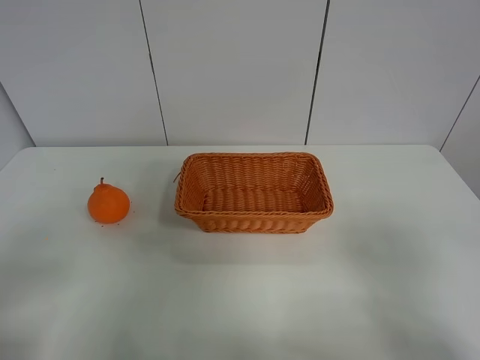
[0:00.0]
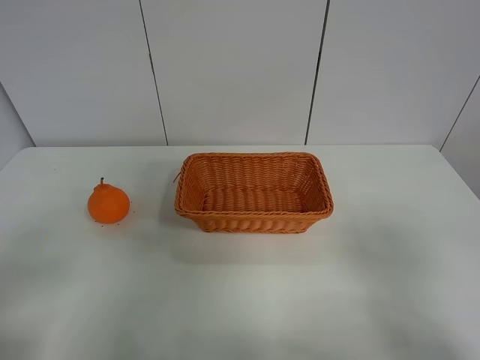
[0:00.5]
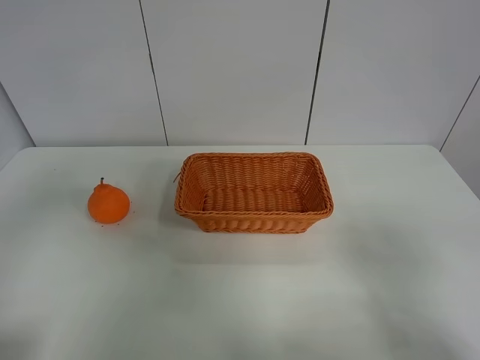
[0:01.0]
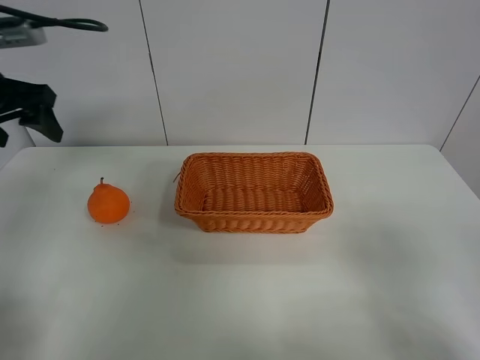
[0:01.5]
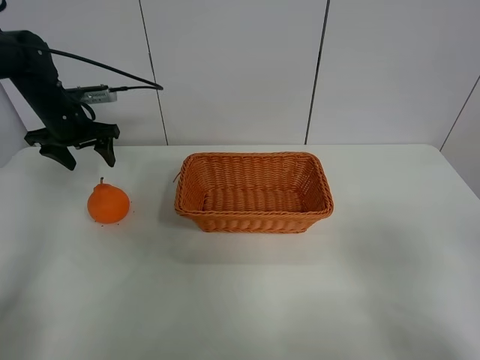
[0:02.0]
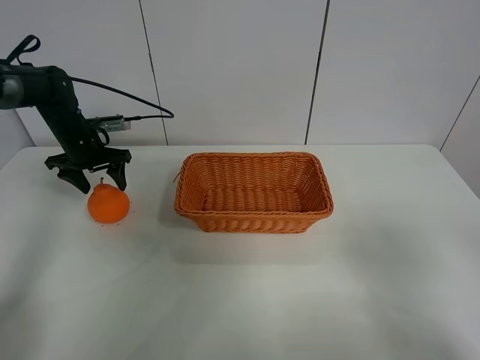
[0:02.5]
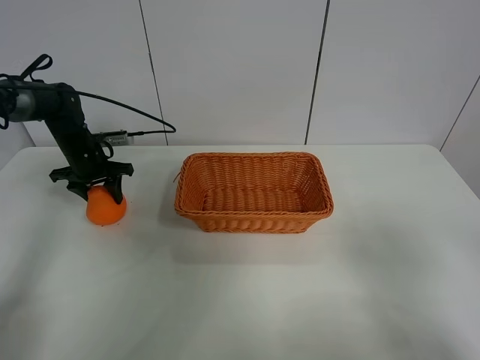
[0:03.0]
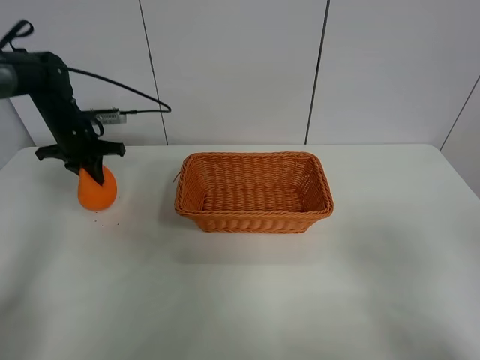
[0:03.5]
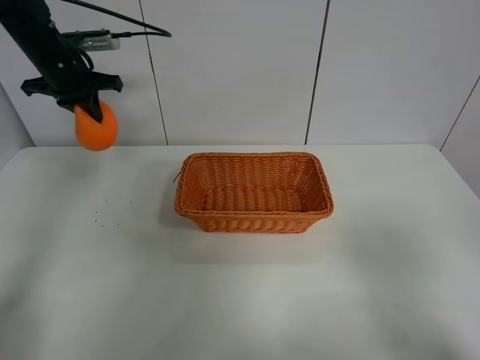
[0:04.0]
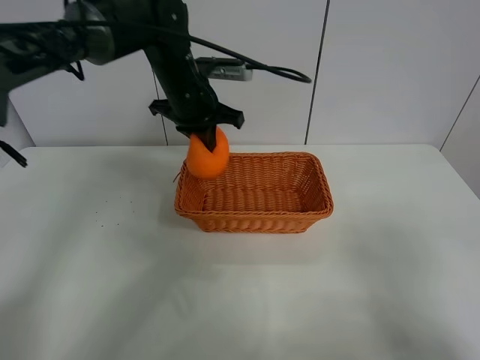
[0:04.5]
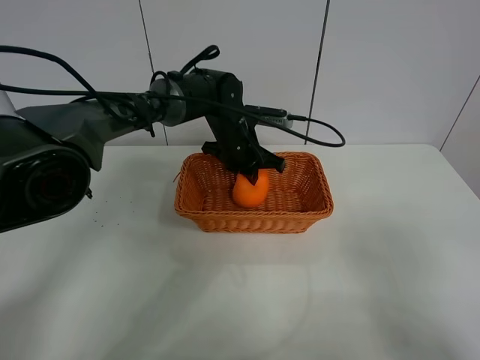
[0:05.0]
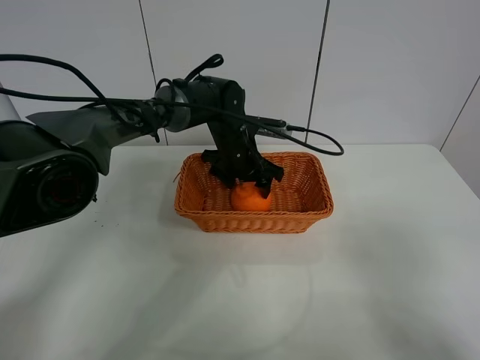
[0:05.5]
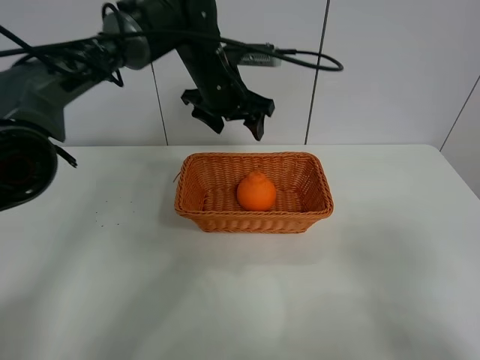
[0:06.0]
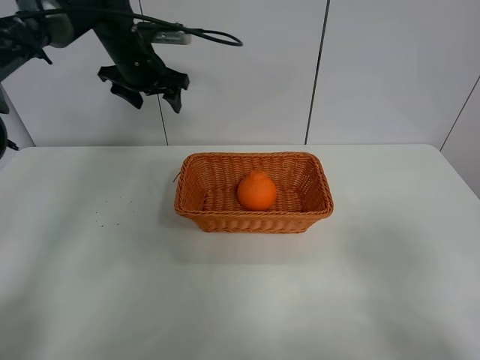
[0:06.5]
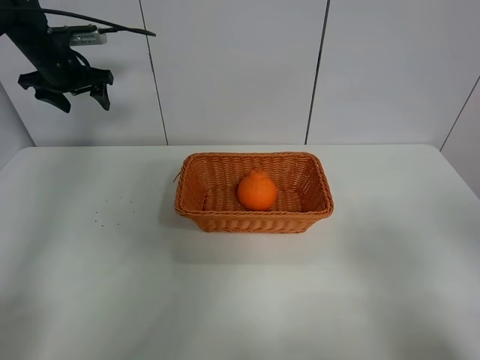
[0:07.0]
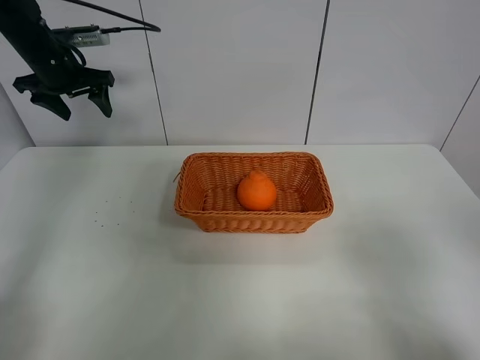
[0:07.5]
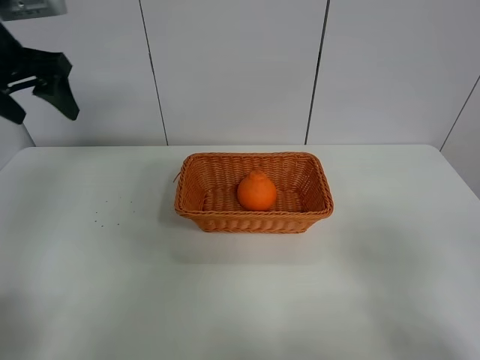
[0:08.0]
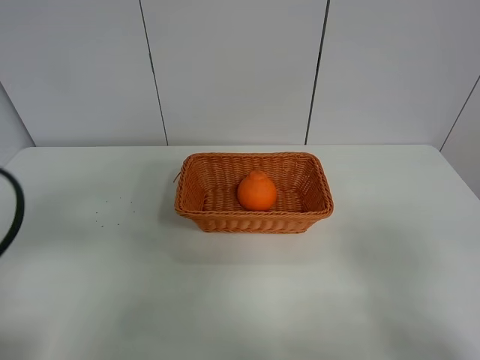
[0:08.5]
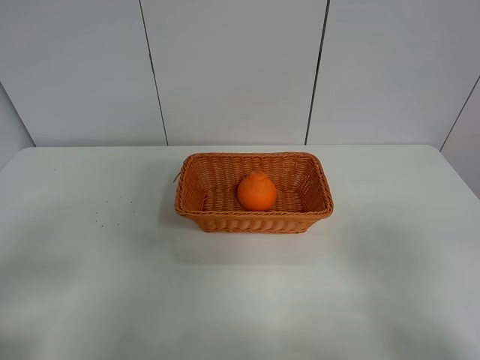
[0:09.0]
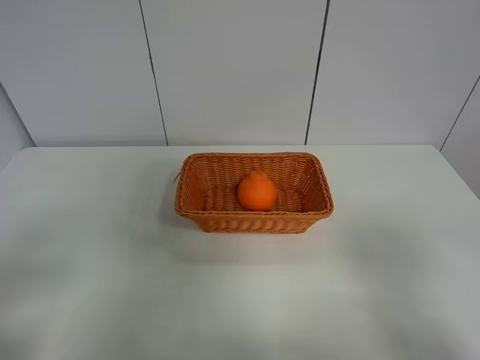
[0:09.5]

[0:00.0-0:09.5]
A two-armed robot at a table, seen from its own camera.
Task of the whole recording: left gripper grabs oranges and puts them in the basket.
Step, 0:00.0 to 0:03.0: Grasp the orange with left gripper.
Step, 0:03.5 to 0:06.5: Place the orange in the basket with left gripper.
0:00.0 to 0:02.0: The left gripper travels forward by roughly 50 cm.
0:02.0 to 0:04.0: The left gripper goes approximately 10 cm upward, and closes.
0:04.0 to 0:05.5: The left gripper shifts approximately 30 cm to the right and downward, and opens its fingers.
0:05.5 to 0:07.5: The left gripper shifts roughly 35 cm to the left and upward.
0:07.5 to 0:09.5: The left gripper moves backward, about 50 cm.

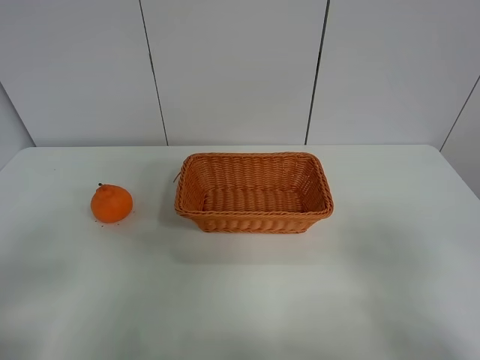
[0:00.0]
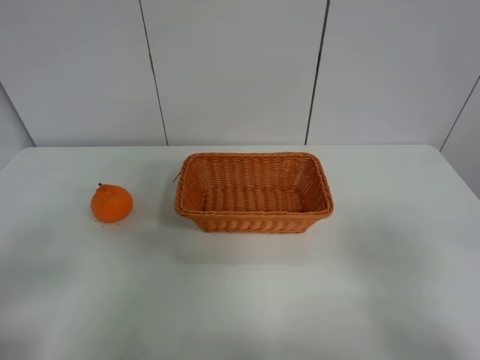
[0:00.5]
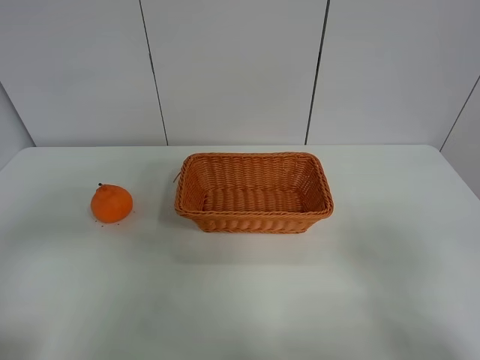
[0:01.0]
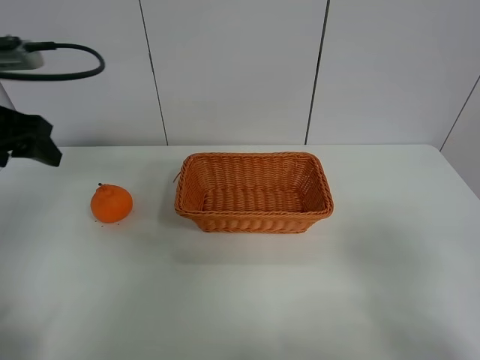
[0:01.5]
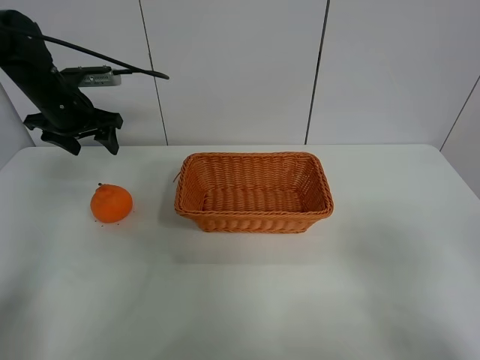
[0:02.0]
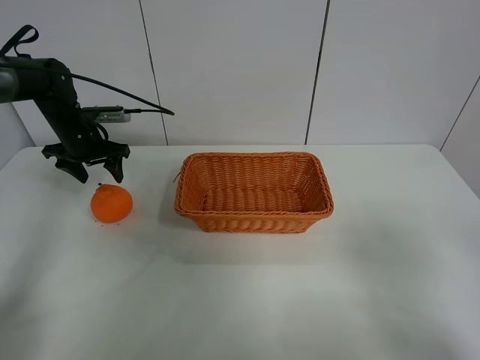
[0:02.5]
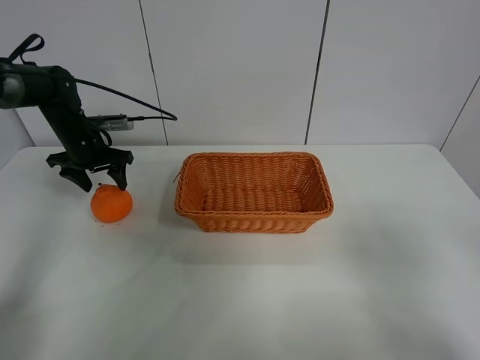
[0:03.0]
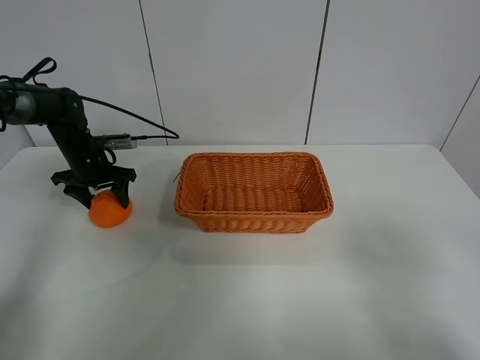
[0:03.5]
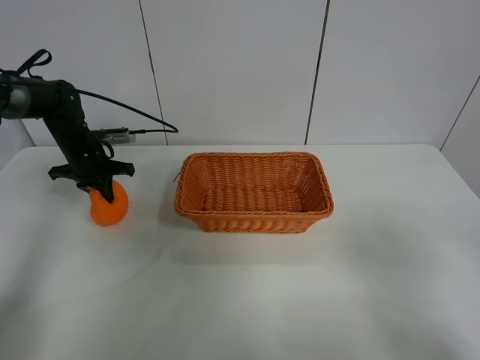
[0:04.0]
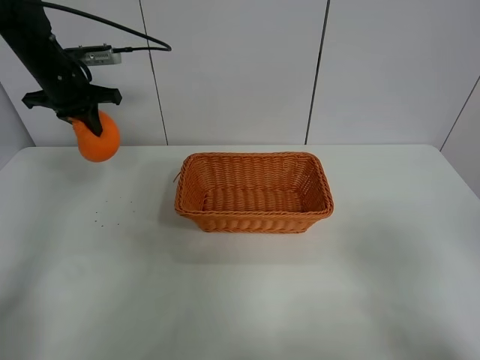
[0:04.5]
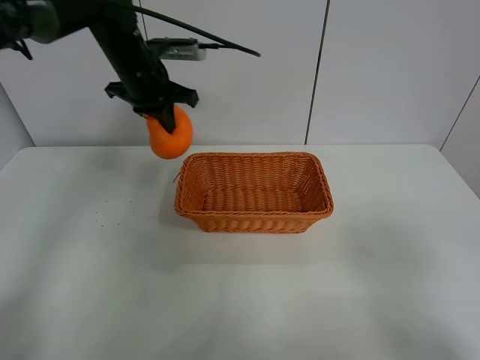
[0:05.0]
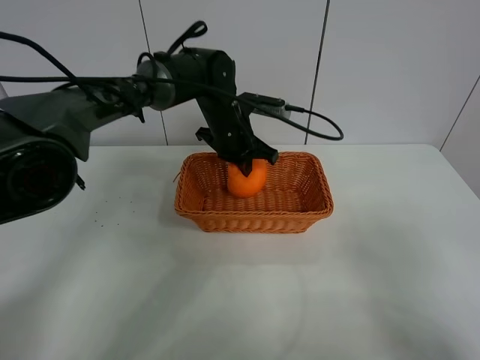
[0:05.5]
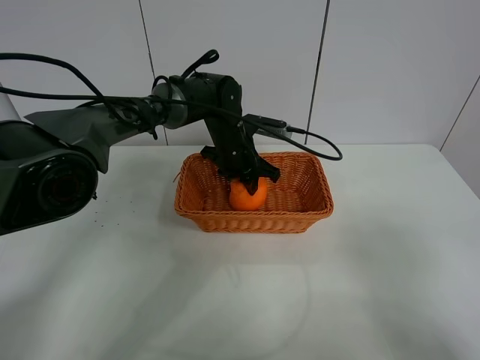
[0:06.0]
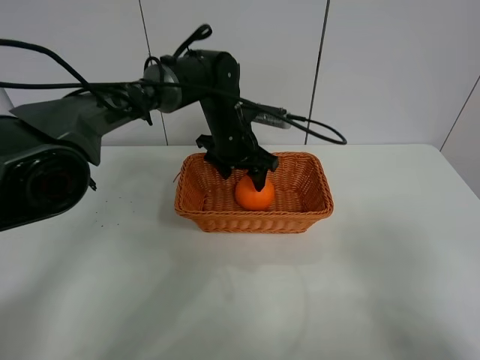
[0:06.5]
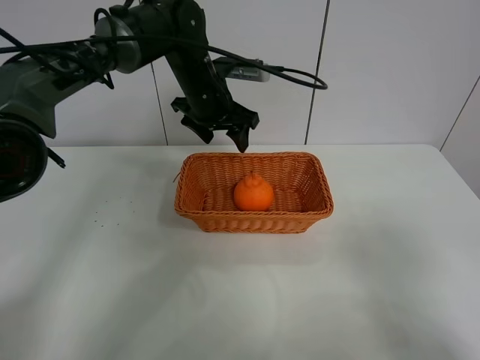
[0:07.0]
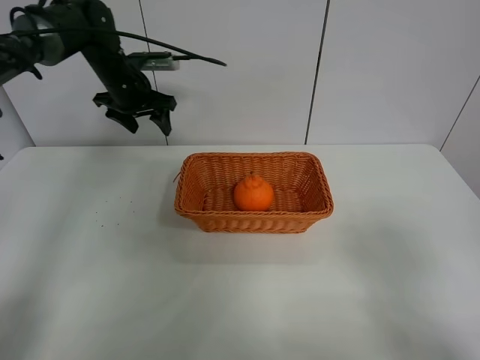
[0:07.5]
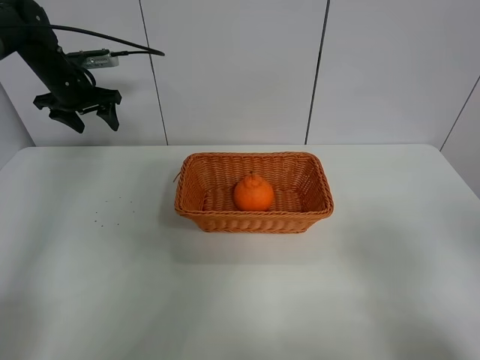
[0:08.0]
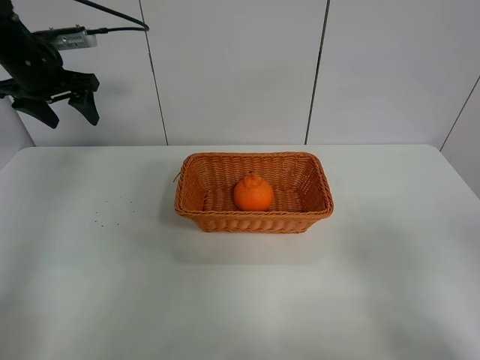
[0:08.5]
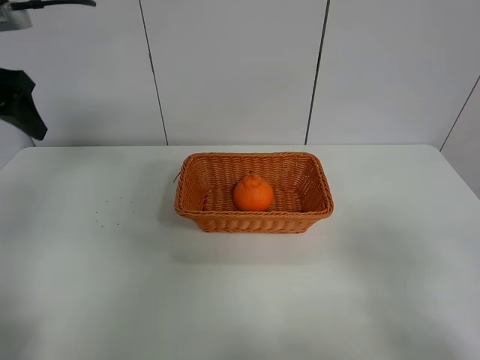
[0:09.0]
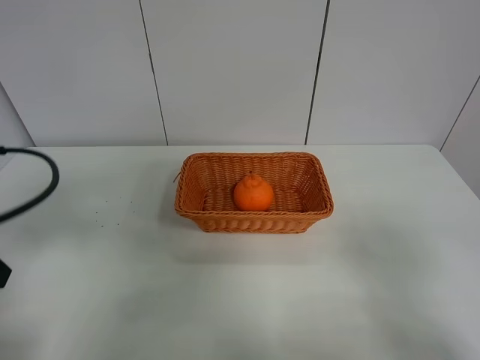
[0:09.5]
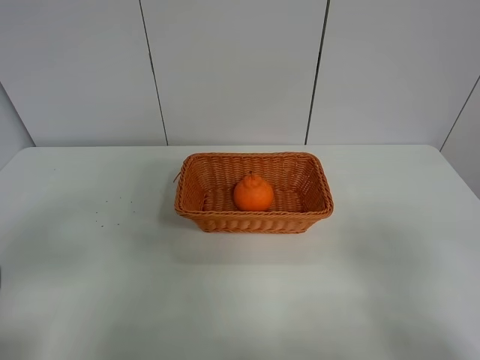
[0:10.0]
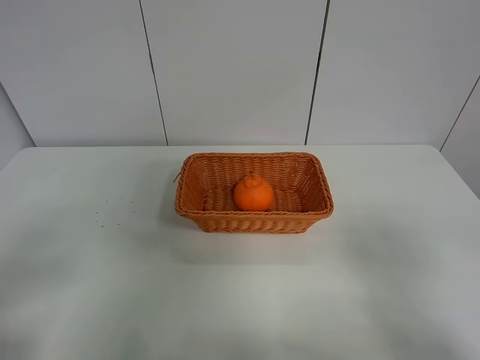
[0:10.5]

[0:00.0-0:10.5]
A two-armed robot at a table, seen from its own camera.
Task of the whole recording: left gripper grabs oranges and puts them in the basket.
Step, 0:00.0 to 0:03.5: Grasp the orange with left gripper.
Step, 0:04.0 to 0:07.0: Place the orange in the basket with left gripper.
0:00.0 to 0:02.0: The left gripper goes some 40 cm forward.
0:02.0 to 0:04.0: The left gripper is displaced downward by about 10 cm, and closes its fingers.
0:04.0 to 0:06.5: The left gripper heads to the right, covering approximately 30 cm, and opens.
0:06.5 to 0:08.5: The left gripper is displaced to the left by approximately 30 cm.
0:08.5 to 0:10.5: The left gripper is displaced backward by about 40 cm.
